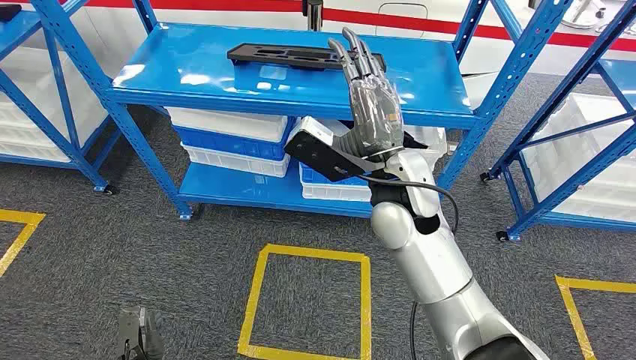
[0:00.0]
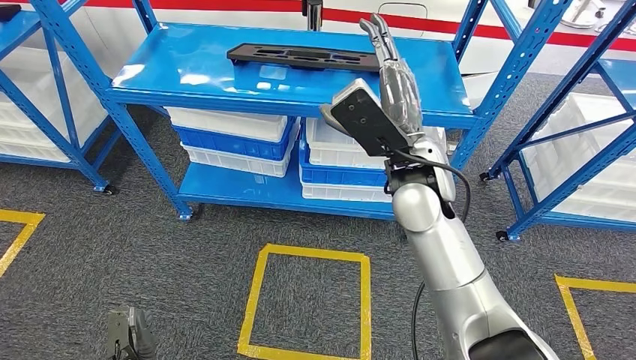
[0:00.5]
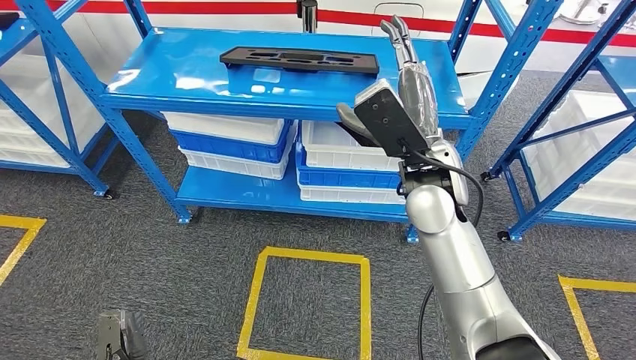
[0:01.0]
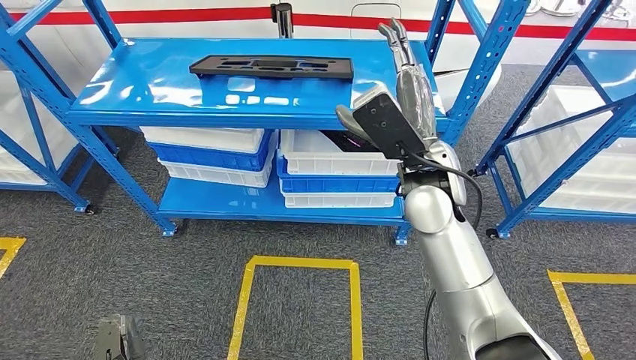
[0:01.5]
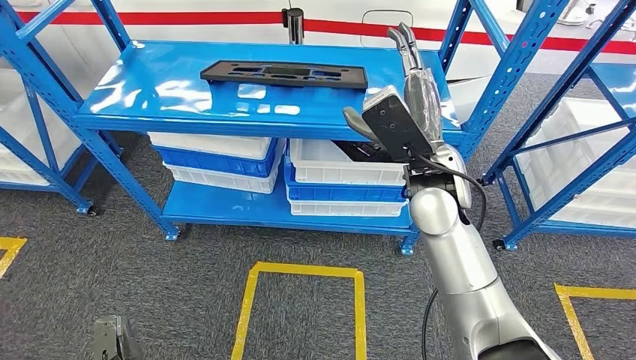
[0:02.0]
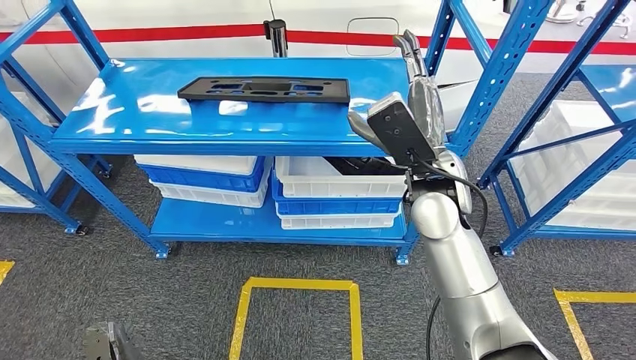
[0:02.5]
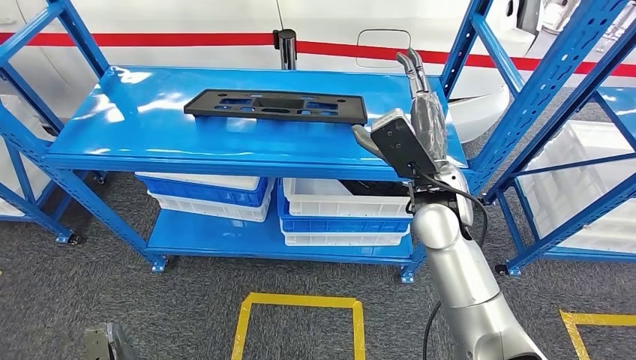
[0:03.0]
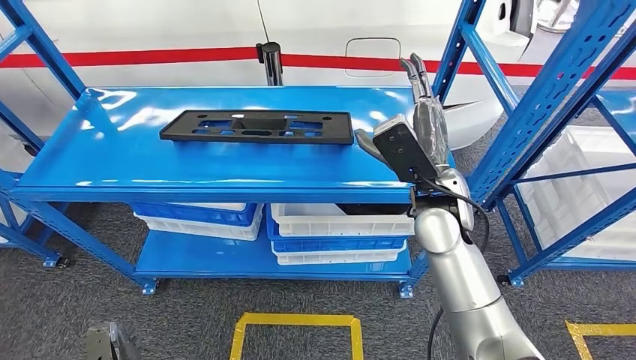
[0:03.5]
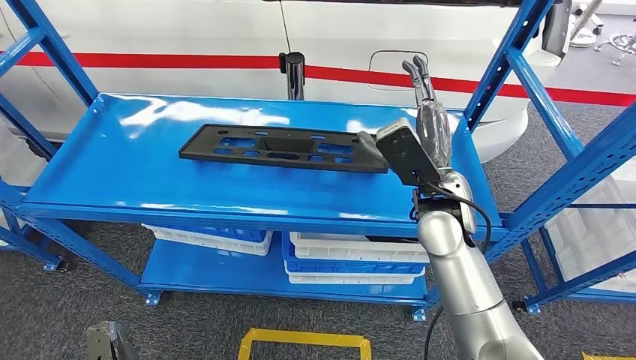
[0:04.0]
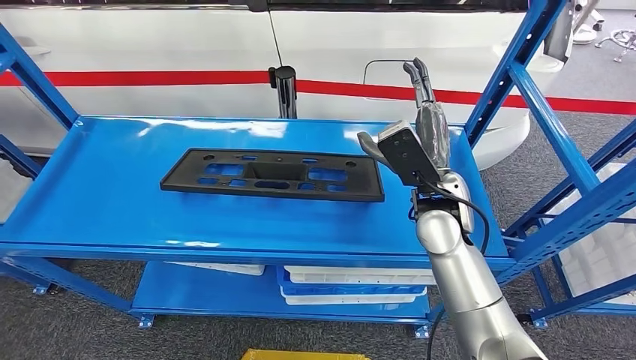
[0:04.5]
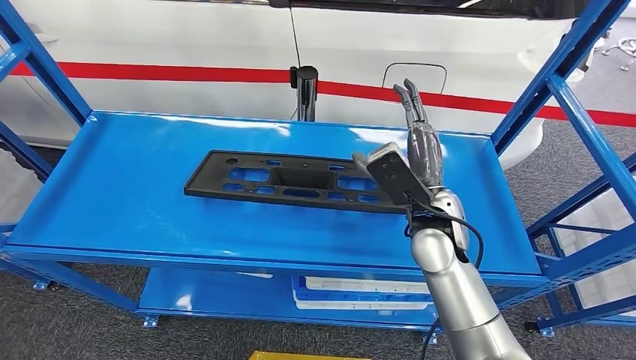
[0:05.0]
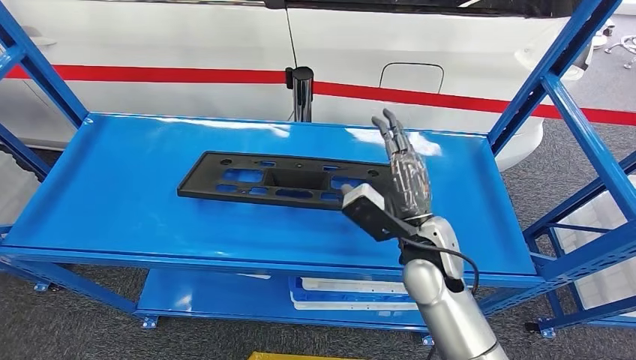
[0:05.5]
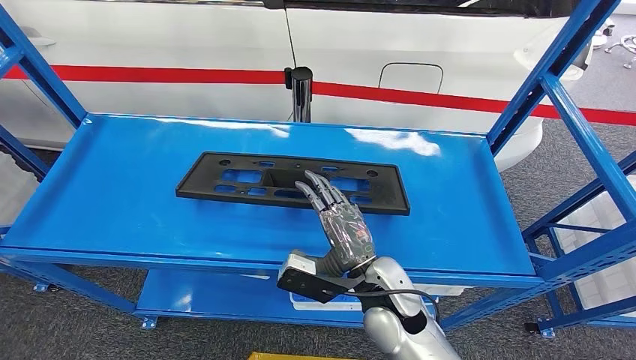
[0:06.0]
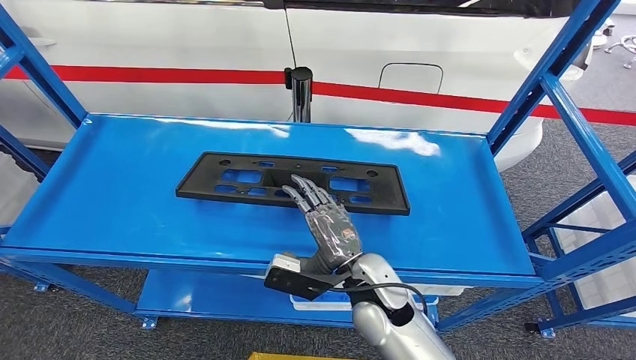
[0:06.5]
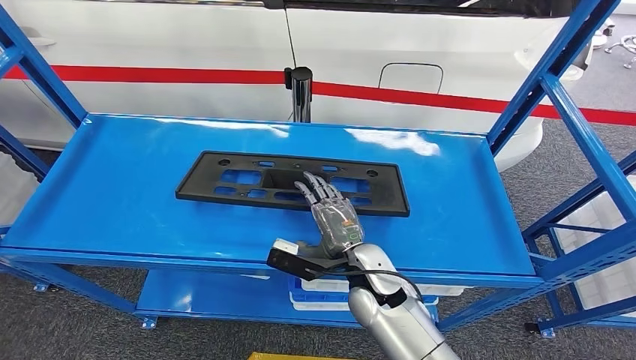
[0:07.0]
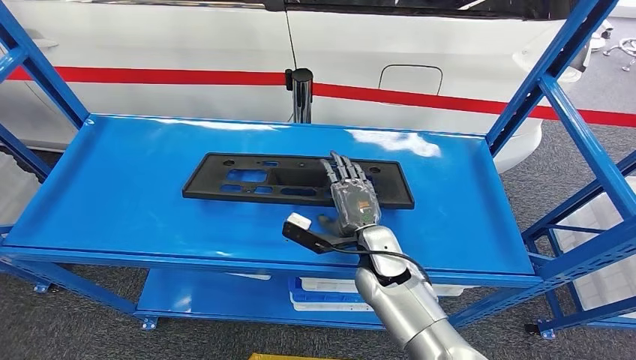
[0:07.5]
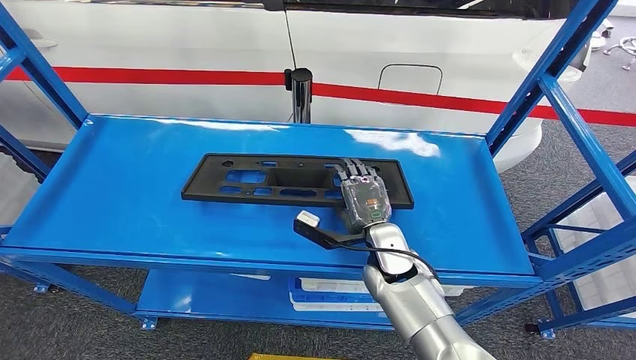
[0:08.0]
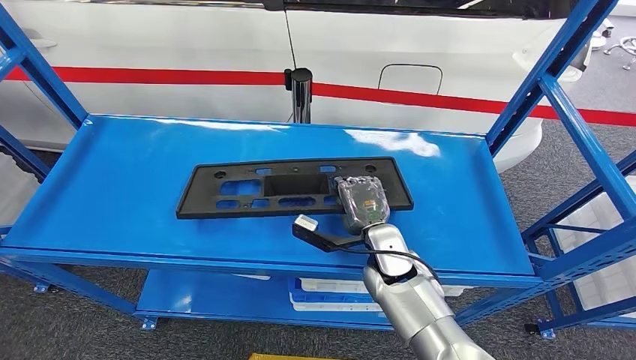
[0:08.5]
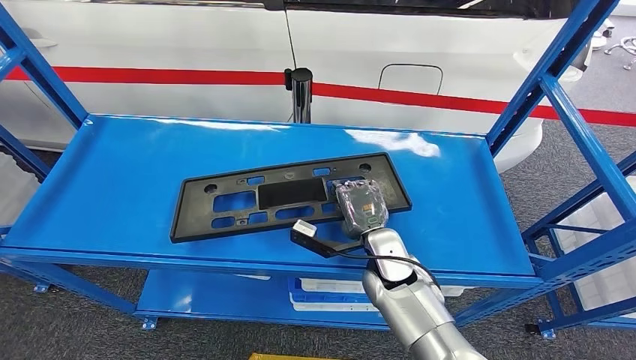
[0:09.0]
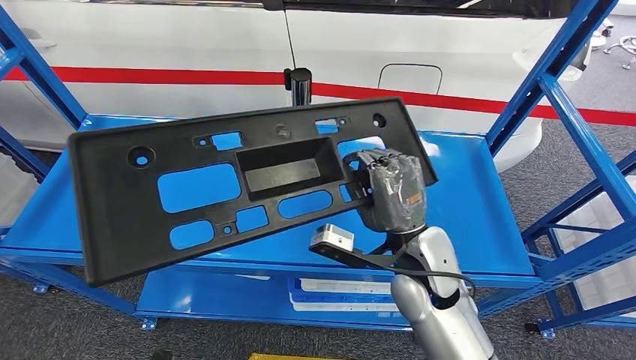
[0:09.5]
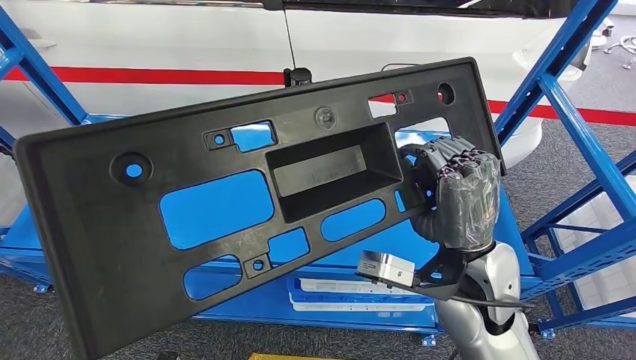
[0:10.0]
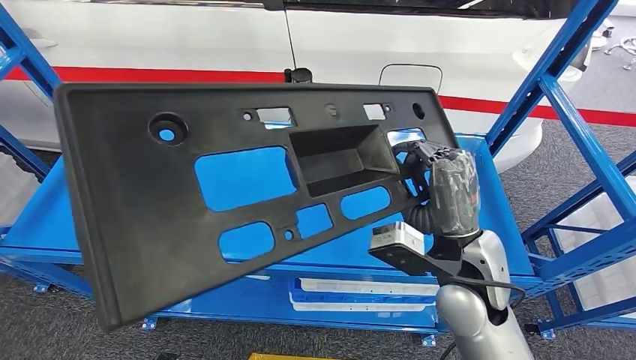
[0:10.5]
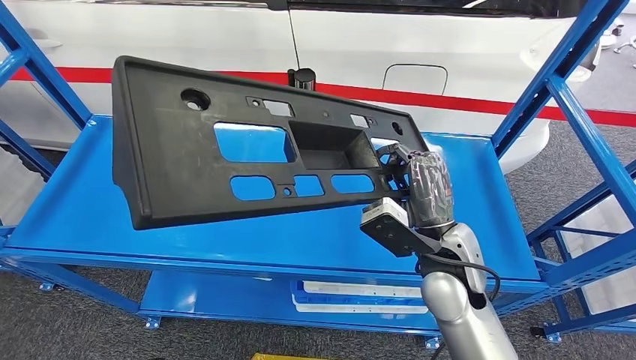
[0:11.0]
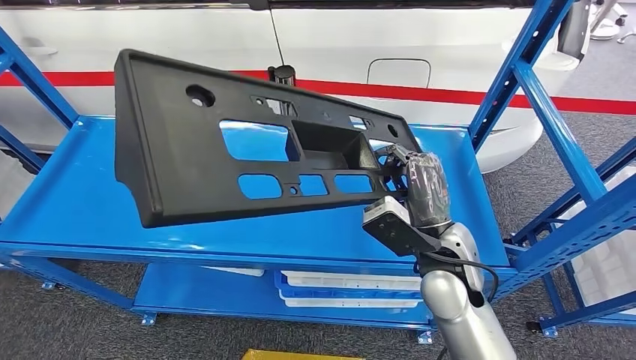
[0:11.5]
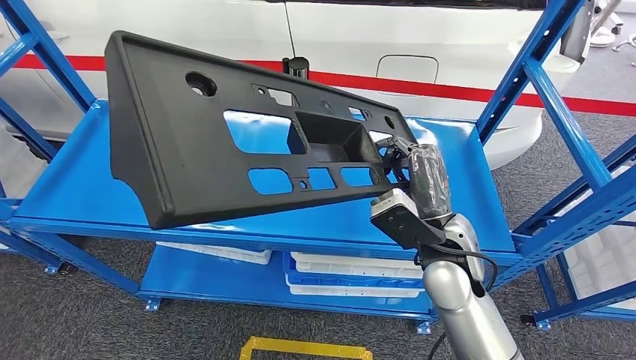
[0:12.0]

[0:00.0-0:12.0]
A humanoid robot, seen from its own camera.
0:06.0 to 0:08.0: The right hand travels forward by some 10 cm.

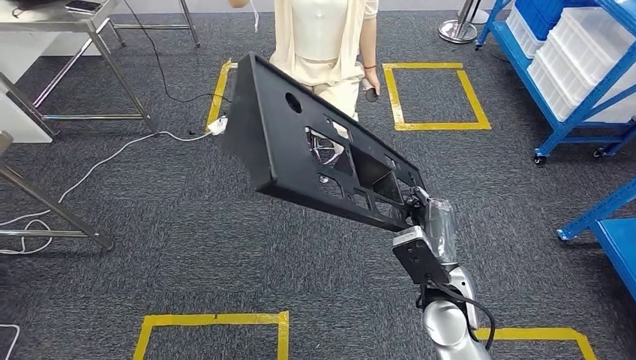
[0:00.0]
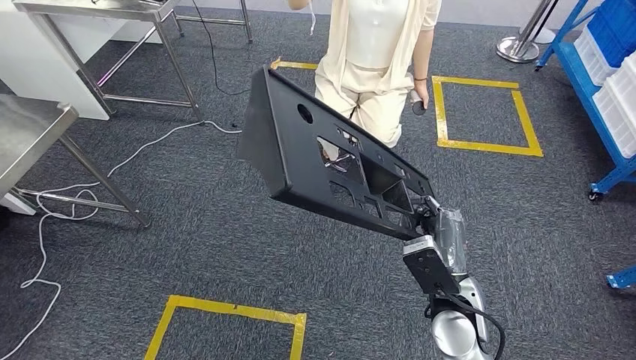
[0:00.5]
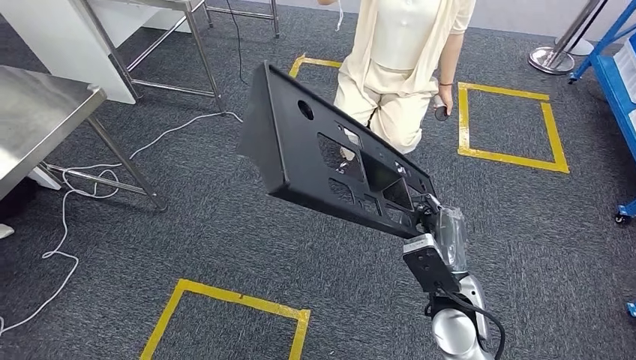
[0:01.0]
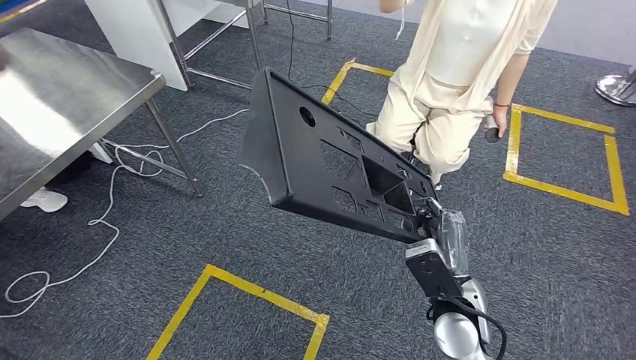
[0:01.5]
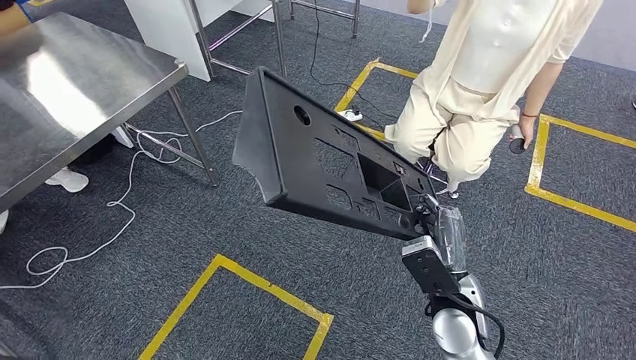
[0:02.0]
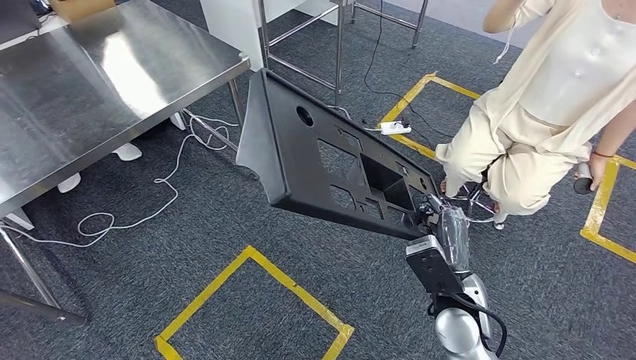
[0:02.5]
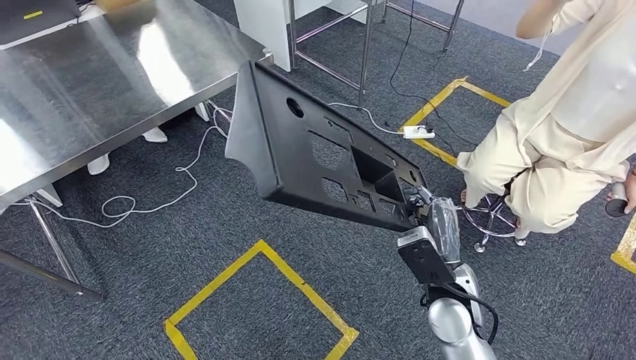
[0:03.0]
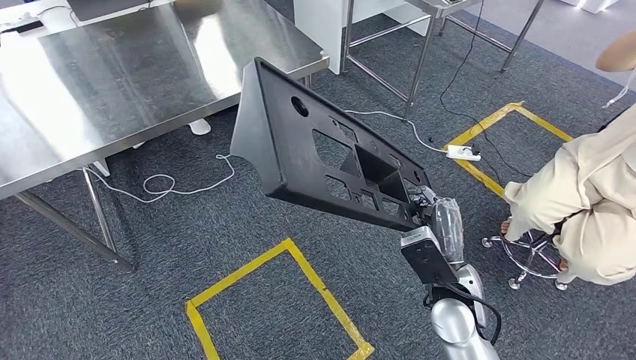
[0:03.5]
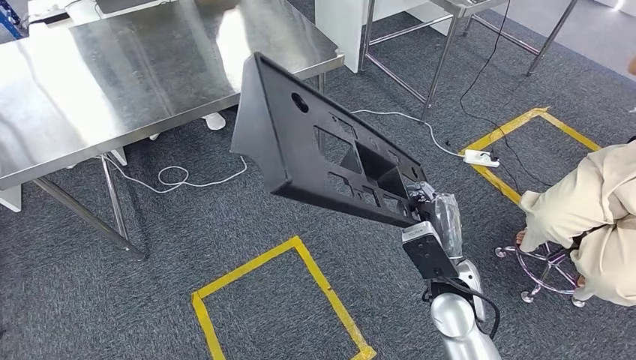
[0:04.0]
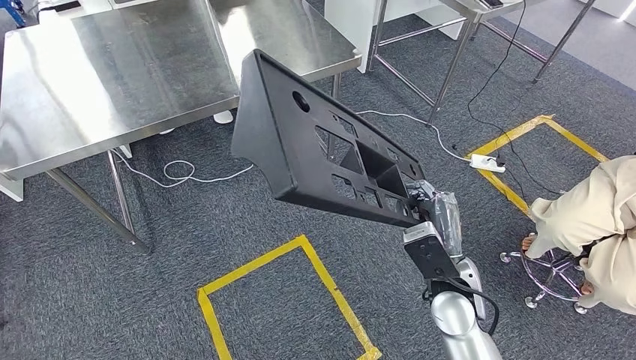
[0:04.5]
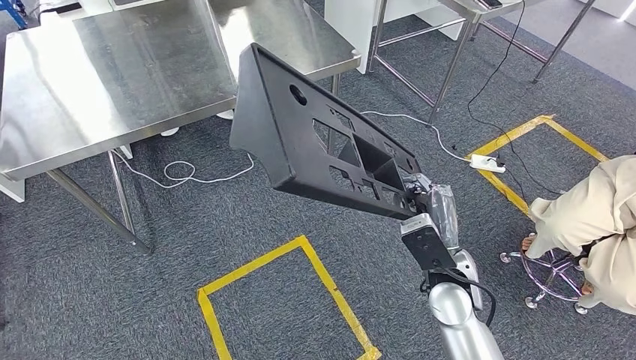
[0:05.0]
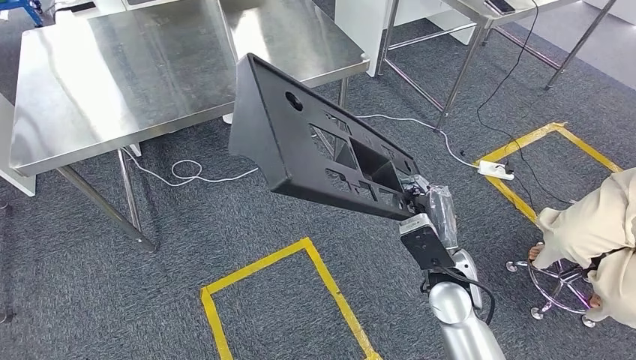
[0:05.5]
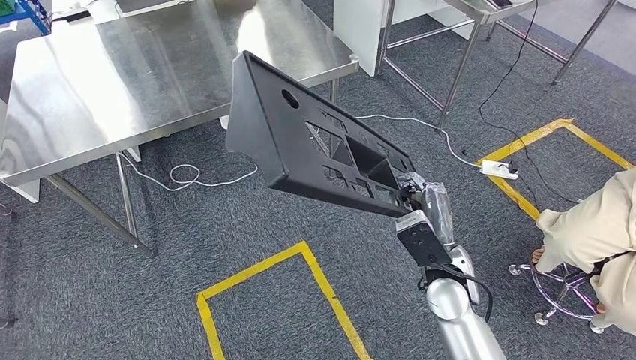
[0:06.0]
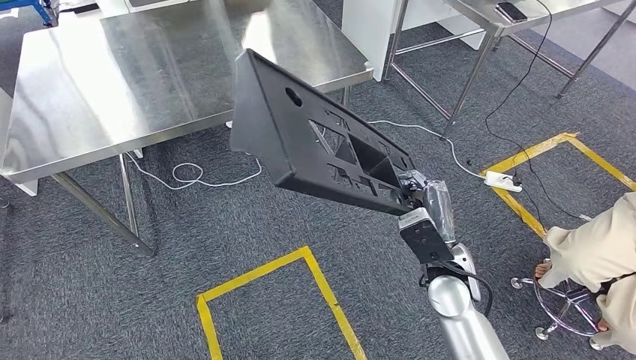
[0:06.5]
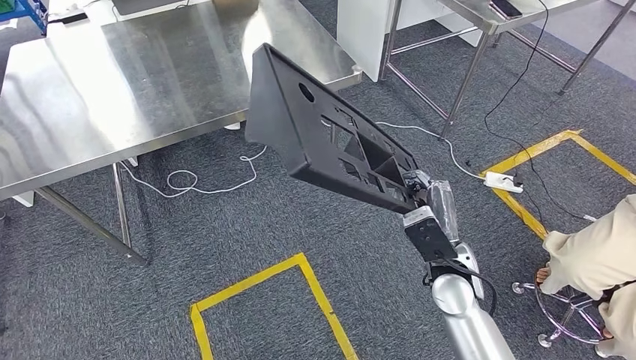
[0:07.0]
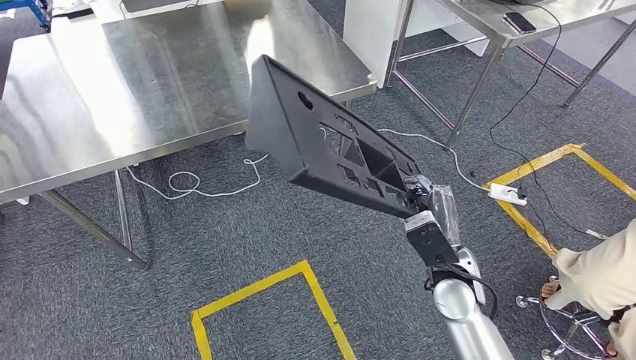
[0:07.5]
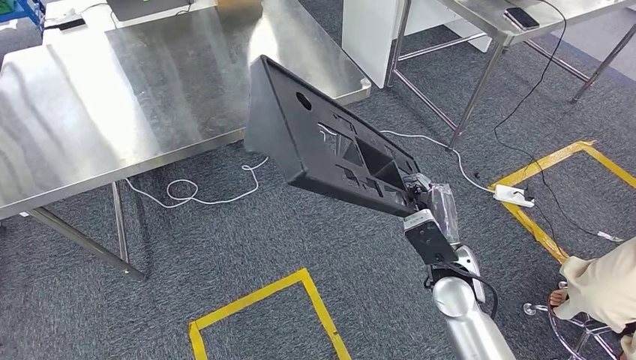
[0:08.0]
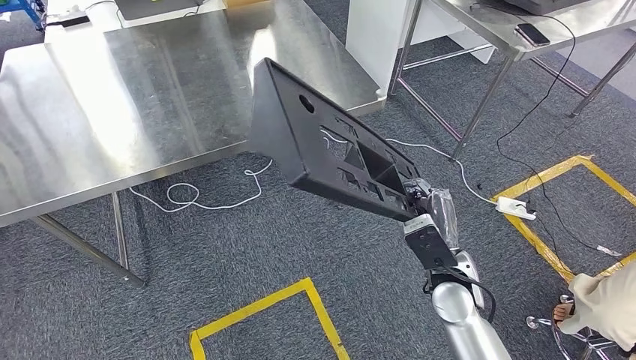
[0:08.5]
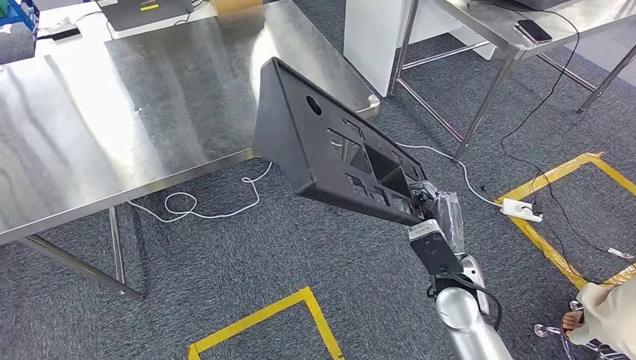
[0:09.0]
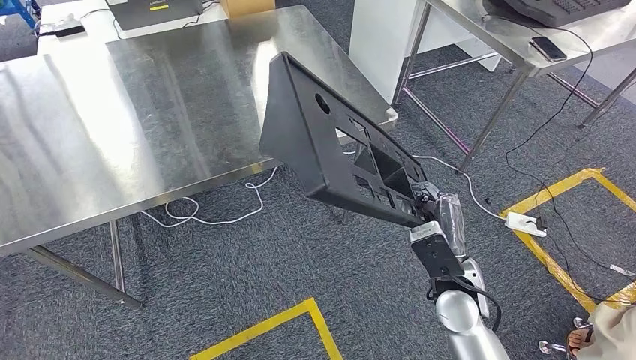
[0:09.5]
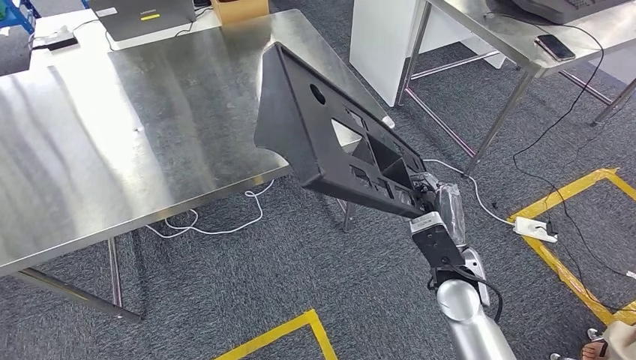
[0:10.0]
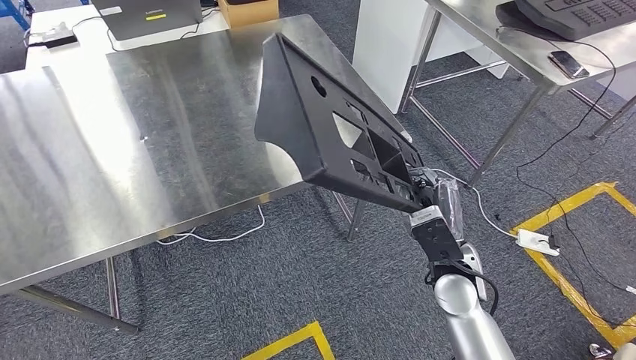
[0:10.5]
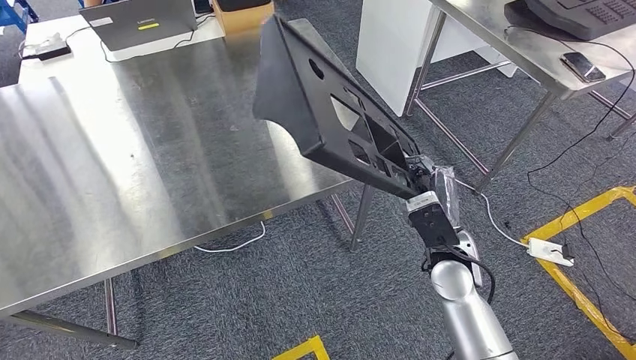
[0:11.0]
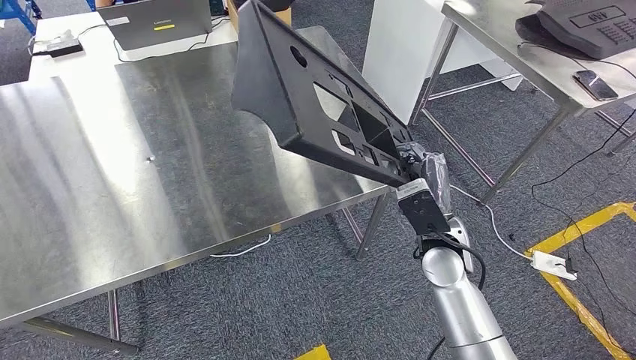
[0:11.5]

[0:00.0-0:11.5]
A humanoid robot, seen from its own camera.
Step, 0:00.0 to 0:10.0: Move the large material to the workbench.
